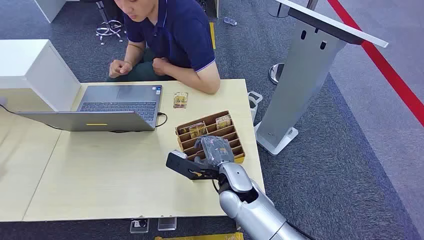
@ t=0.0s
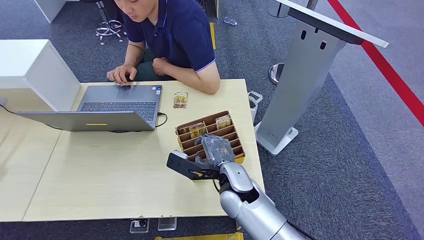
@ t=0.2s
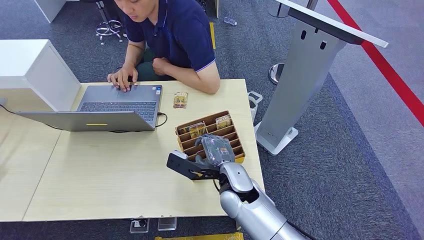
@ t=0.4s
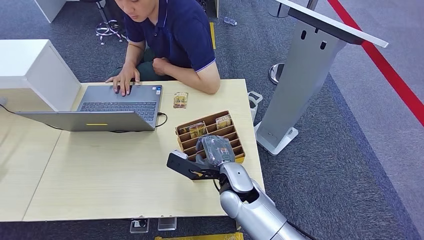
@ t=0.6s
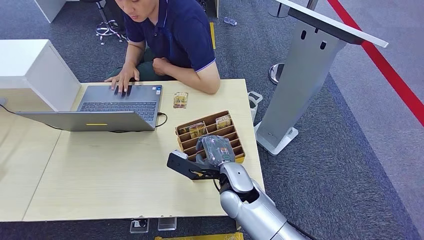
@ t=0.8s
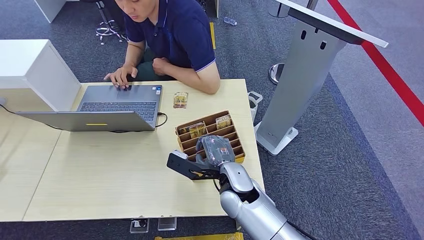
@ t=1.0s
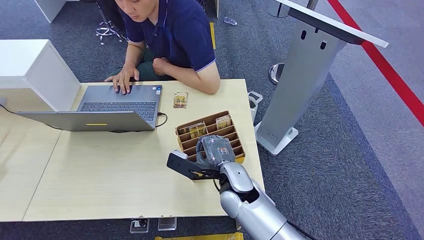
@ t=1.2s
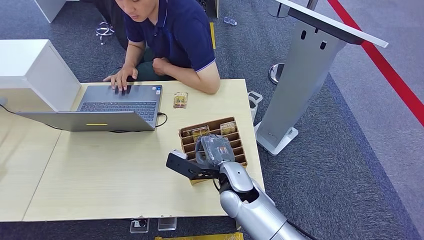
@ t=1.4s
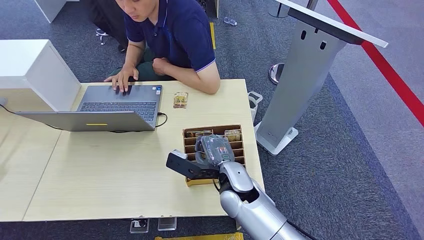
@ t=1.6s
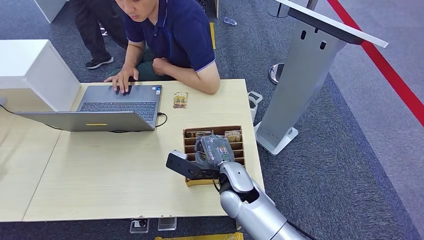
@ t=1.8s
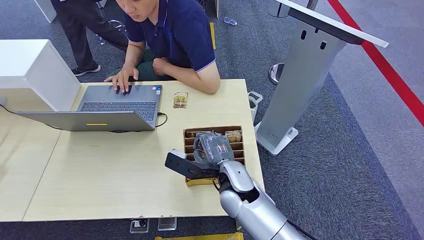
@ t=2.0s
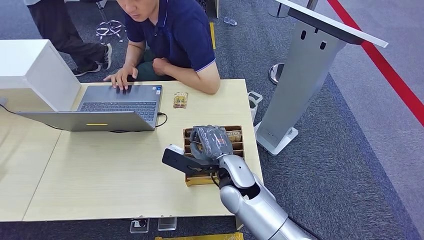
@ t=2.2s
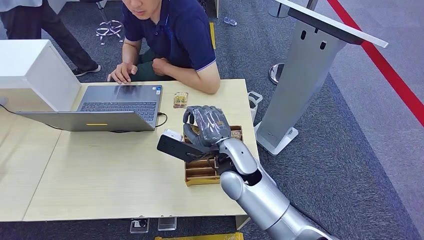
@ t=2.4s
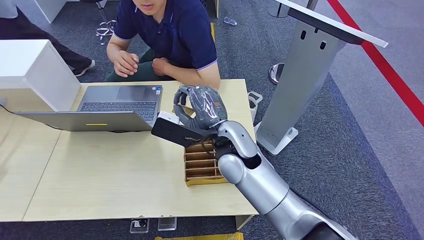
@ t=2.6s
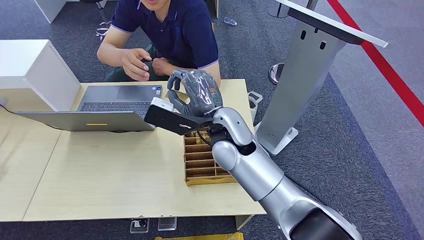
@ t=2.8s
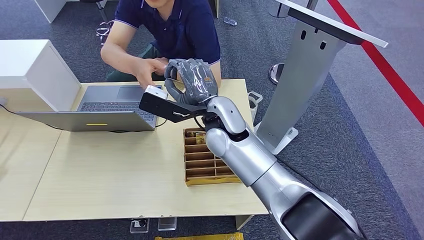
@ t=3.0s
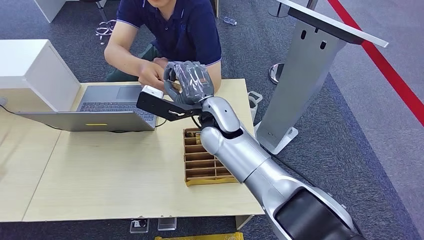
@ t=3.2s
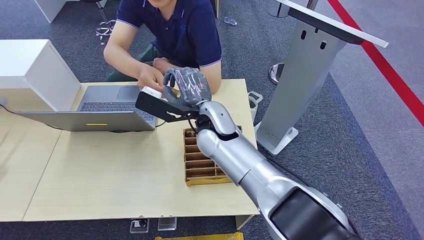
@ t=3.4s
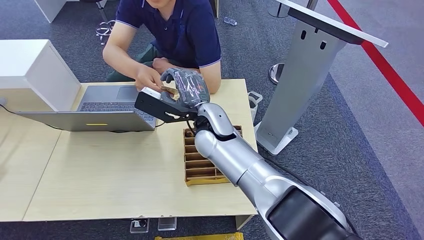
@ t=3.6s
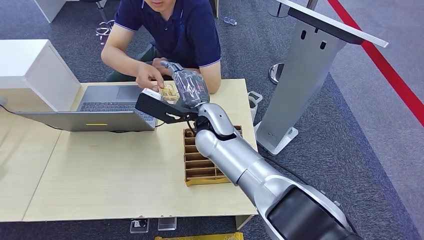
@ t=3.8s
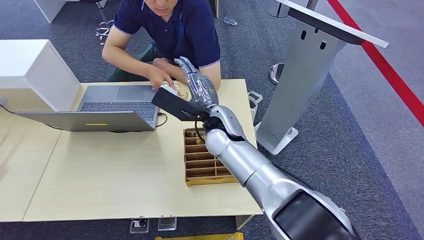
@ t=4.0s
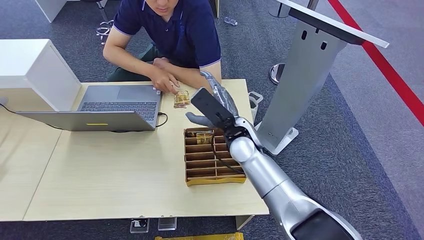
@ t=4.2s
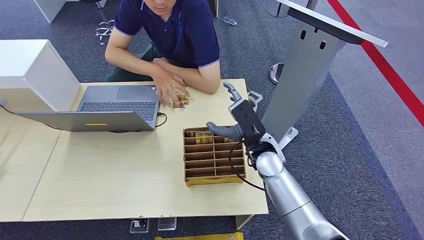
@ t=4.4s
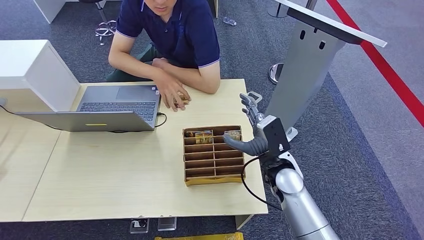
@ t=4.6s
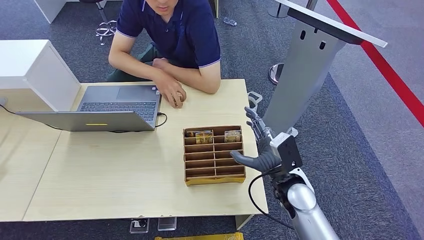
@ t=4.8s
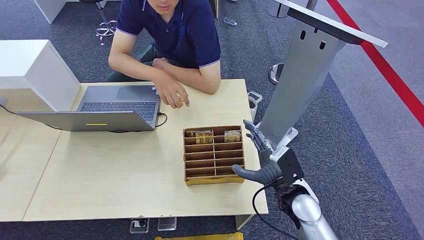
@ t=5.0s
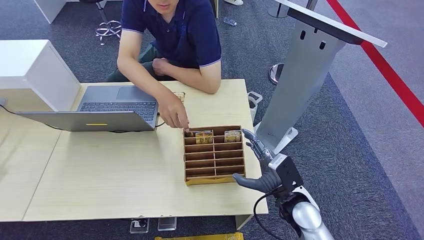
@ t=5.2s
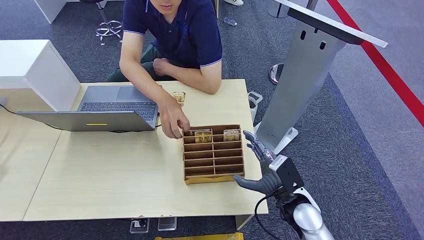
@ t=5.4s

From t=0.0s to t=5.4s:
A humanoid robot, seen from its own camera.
Step, from t=0.0s to t=2.6s: Pick up the key card from the card box.
Step, from t=3.0s to t=5.4s: Hand the key card to the target.
From t=1.4s to t=2.8s: The right hand is displaced upward and forward by approximately 15 cm.
From t=2.8s to t=4.0s: The right hand shifts by some 5 cm.
From t=4.0s to t=5.4s: The right hand heads to the right, backward and downward, covering roughly 30 cm.
